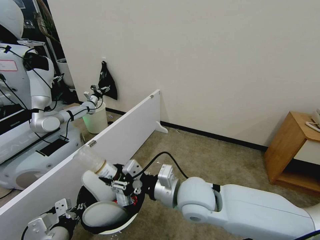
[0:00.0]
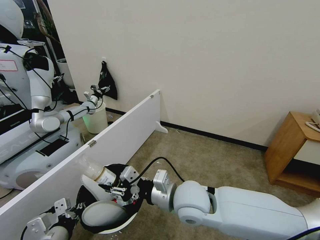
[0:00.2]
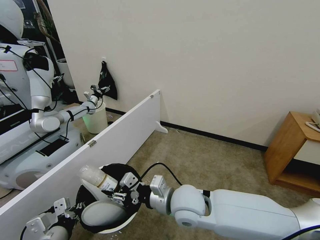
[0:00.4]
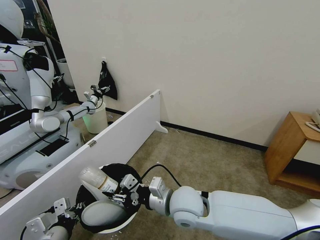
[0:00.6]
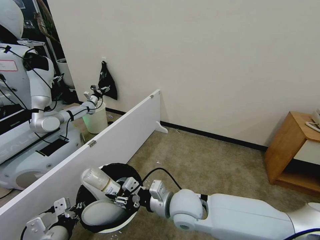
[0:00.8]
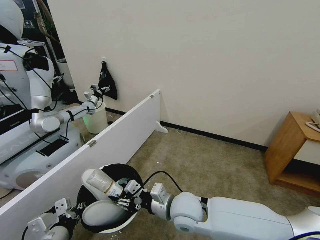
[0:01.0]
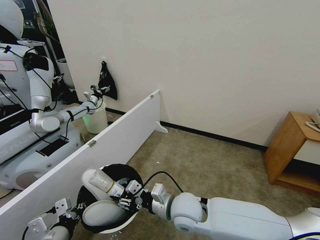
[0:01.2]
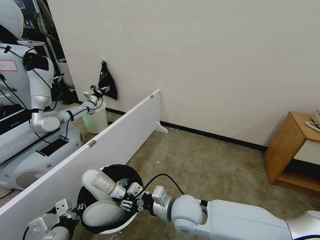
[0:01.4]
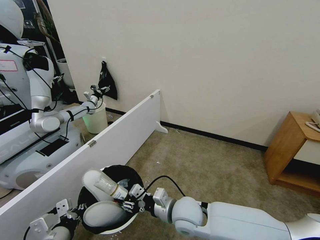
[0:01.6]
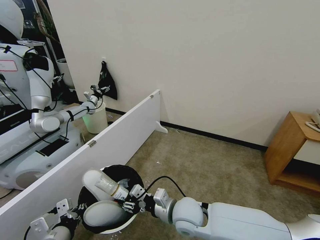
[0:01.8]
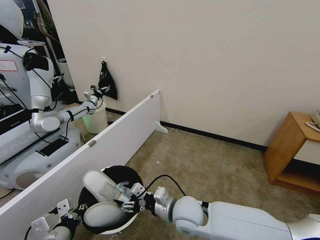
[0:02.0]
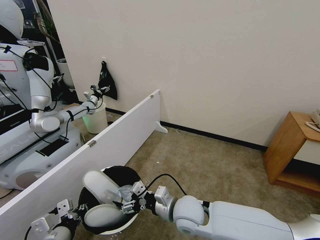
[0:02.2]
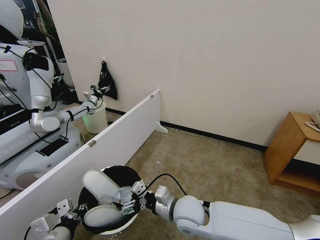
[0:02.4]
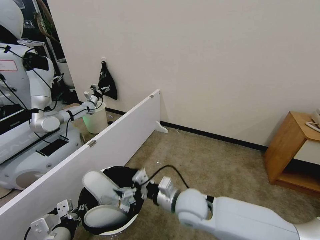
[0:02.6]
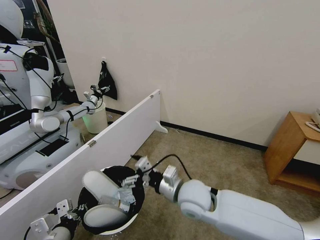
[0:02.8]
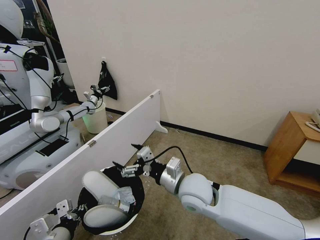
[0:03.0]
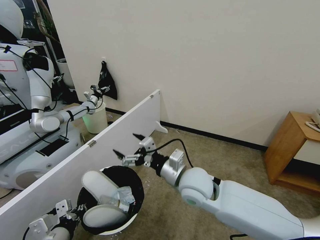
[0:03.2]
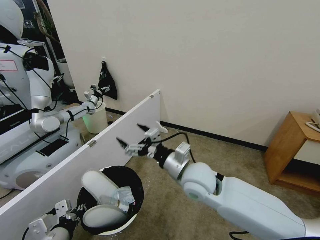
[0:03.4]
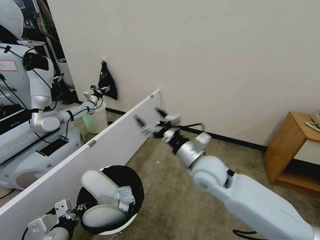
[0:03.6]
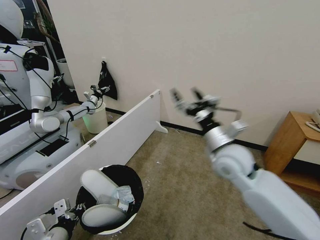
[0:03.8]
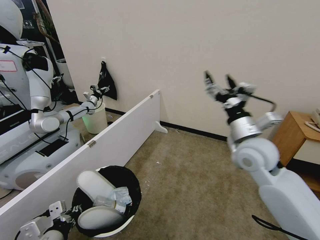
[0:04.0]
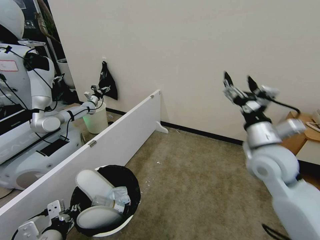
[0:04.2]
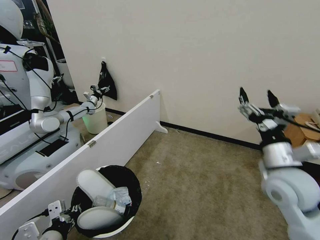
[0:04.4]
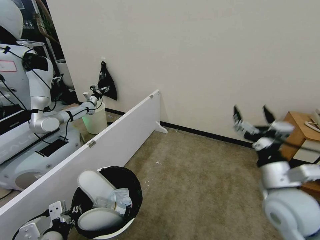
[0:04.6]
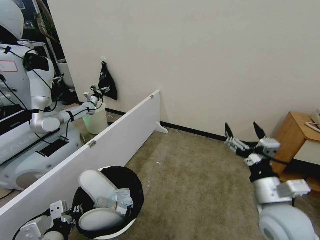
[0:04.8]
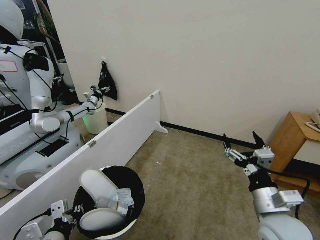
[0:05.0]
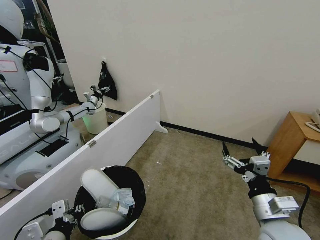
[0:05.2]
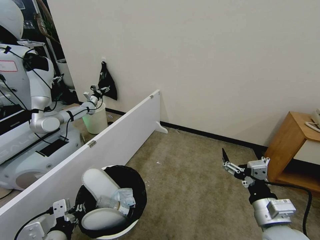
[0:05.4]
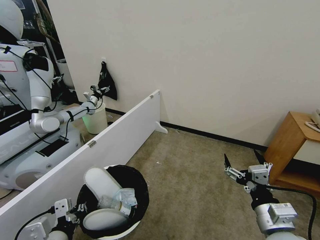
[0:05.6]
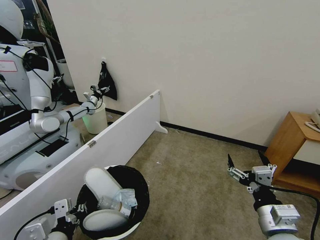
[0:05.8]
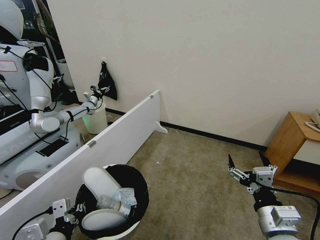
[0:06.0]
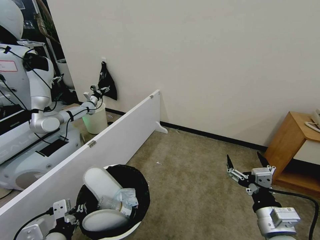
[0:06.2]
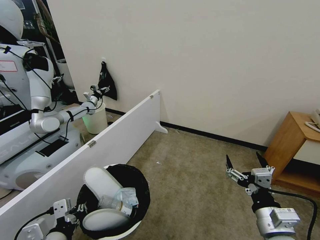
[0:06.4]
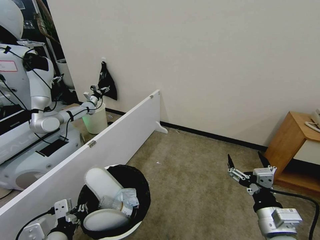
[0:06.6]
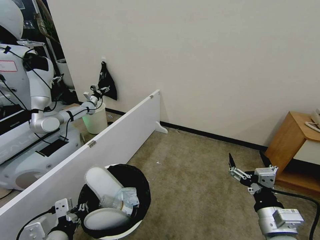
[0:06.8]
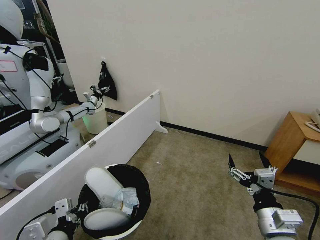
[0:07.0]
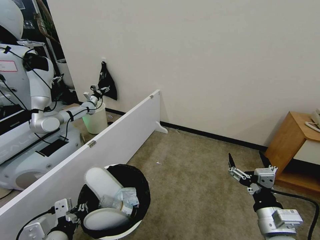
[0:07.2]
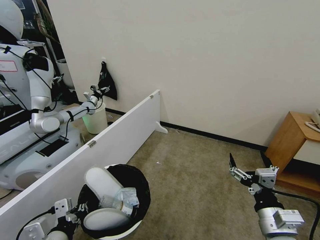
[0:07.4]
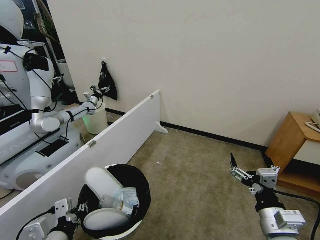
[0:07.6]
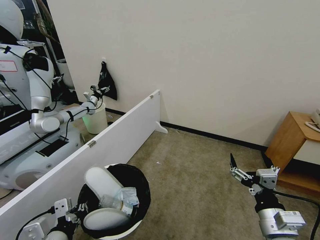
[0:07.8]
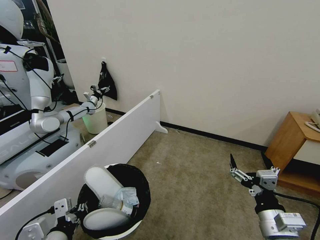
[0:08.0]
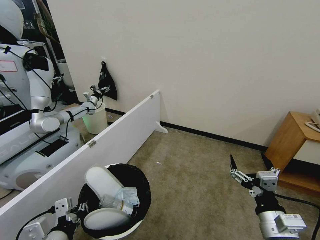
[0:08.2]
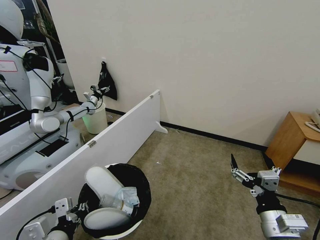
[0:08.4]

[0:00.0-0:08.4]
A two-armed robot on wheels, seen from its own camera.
Task of the whole recording: Pick up the trash bin and place the garbage on the floor into it.
0:00.0 to 0:01.4: The right gripper moves downward, about 10 cm.
0:01.4 to 0:02.8: The right gripper shifts approximately 5 cm upward, and opens its fingers.
0:02.8 to 0:04.2: The right gripper goes some 25 cm to the right and upward.
0:04.2 to 0:05.6: The right gripper travels backward and downward by approximately 20 cm.
0:05.6 to 0:07.0: There are only small adjustments of the grippers.
0:07.0 to 0:08.4: The two grippers keep their place.
